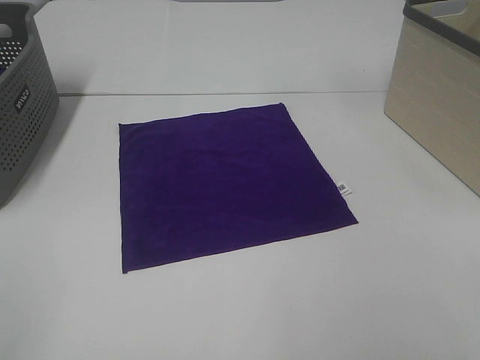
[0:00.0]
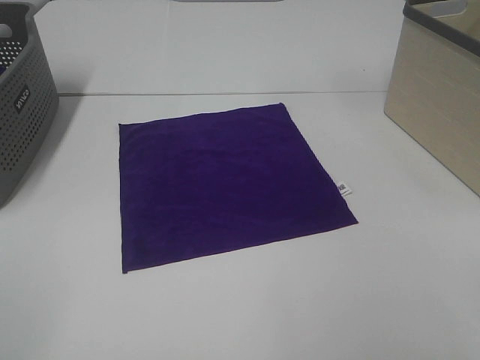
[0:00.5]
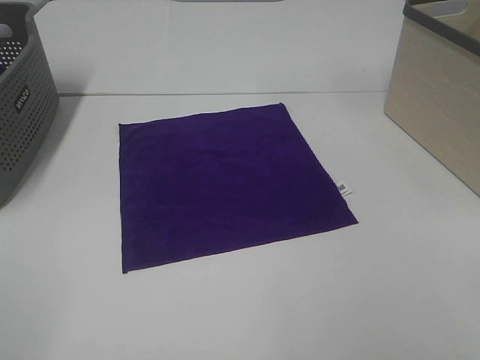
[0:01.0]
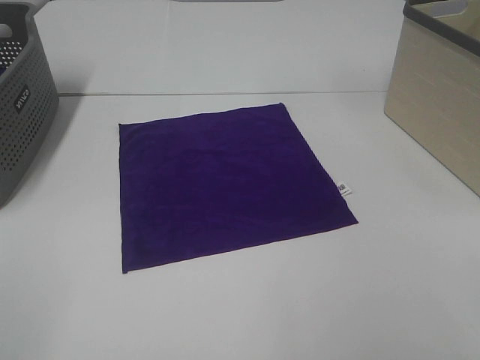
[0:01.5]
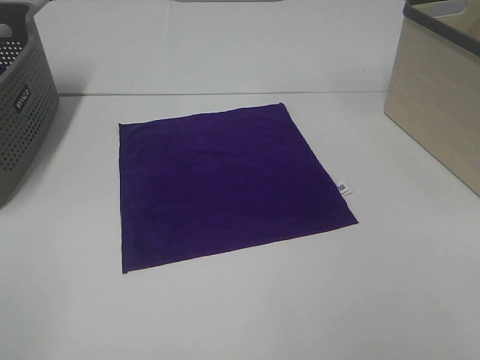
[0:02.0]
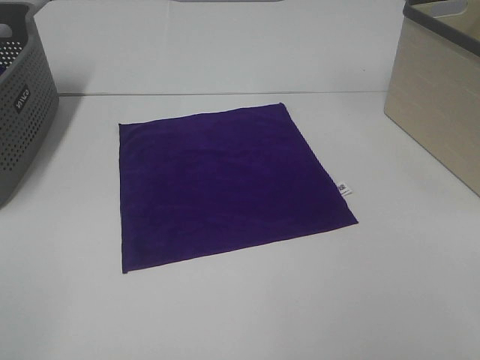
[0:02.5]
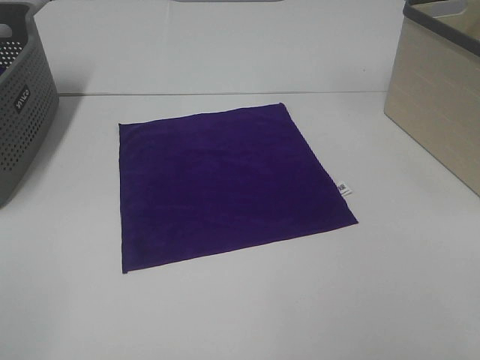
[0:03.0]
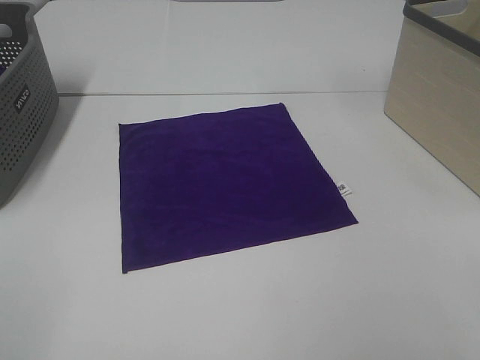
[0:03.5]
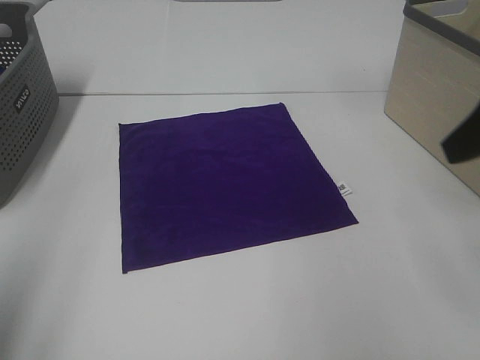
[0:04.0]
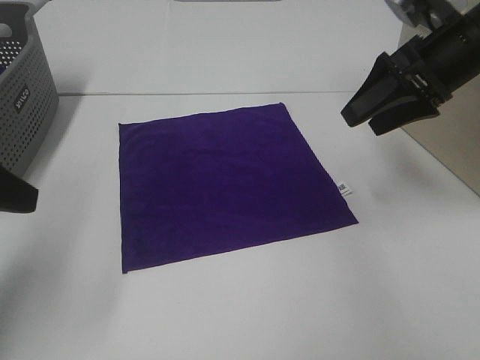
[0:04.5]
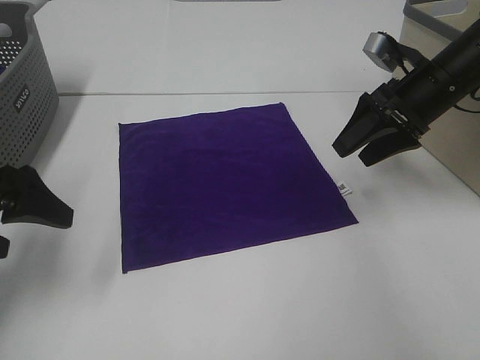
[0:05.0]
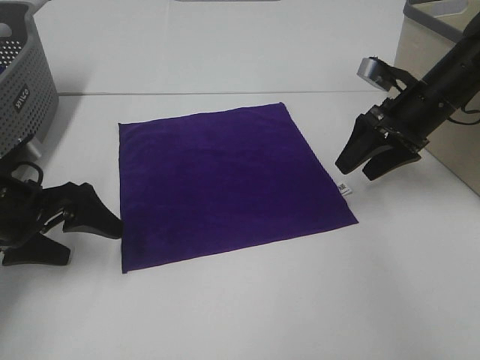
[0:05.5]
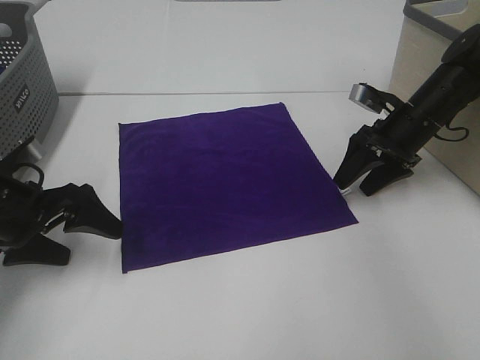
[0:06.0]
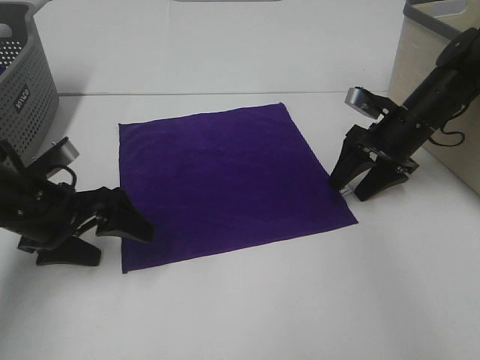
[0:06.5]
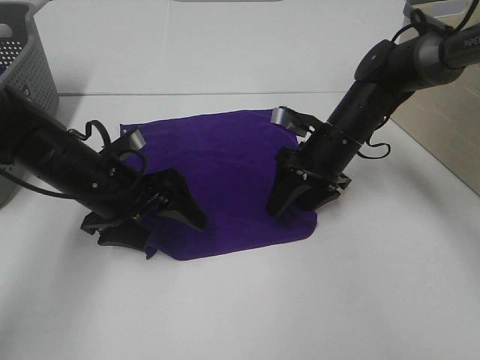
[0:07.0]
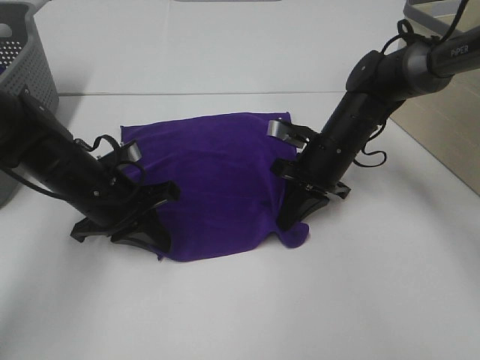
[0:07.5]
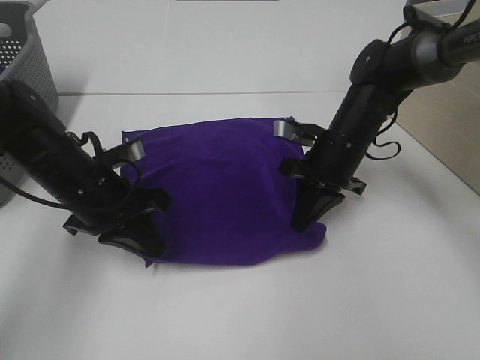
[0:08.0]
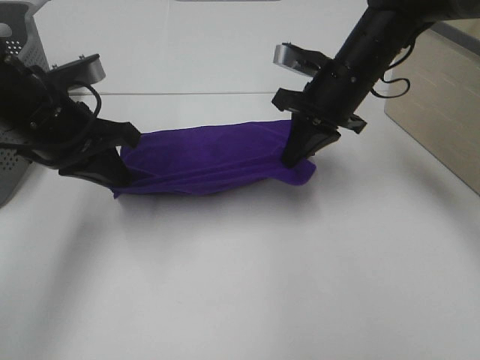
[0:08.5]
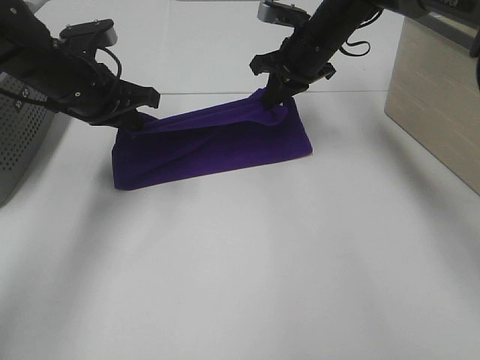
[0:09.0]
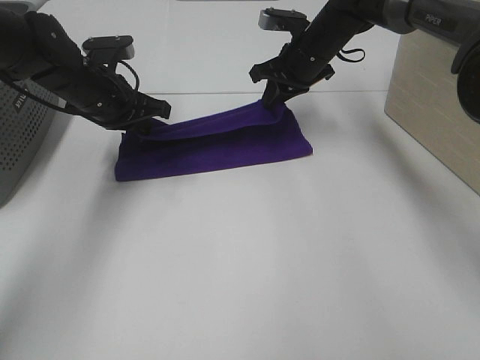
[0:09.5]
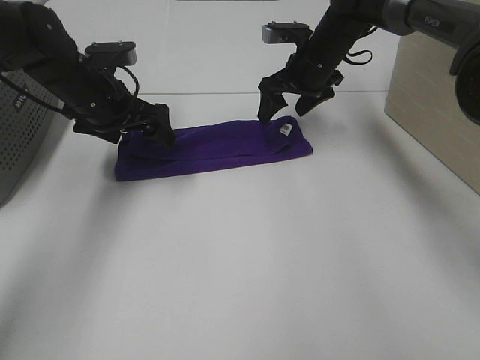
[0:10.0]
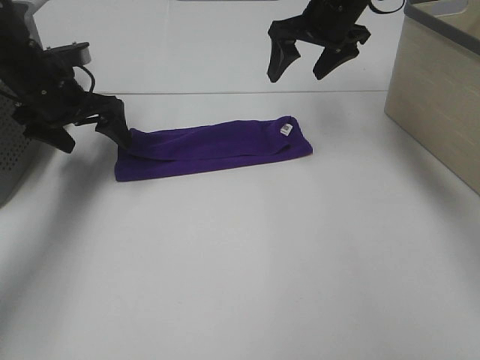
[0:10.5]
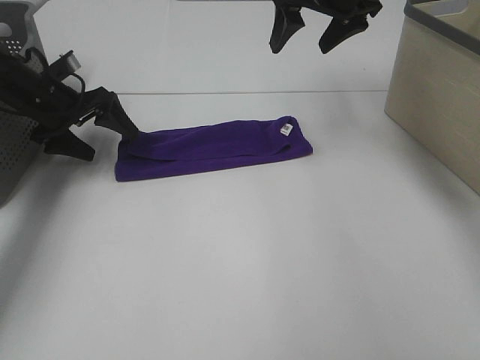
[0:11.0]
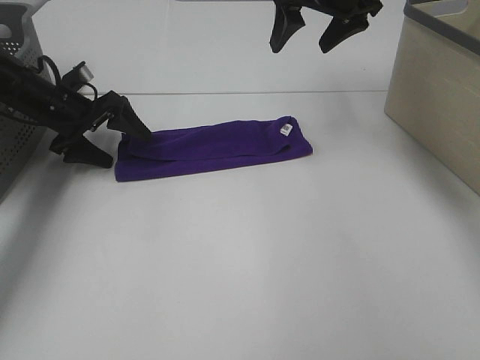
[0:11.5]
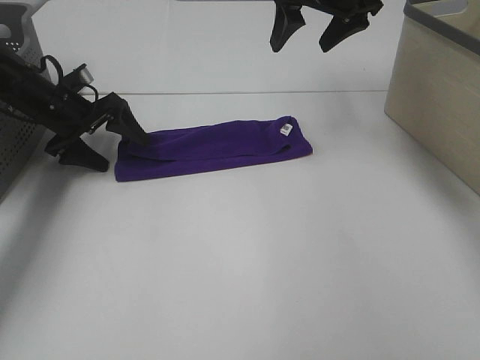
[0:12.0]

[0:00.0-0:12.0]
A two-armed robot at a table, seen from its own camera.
Task of the whole recording: Fold towels.
Step, 0:00.0 to 0:07.5: Left hand: grab the bottom left corner of purple towel.
Step, 0:00.0 to 0:07.5: Right hand: grab the bottom right corner of purple towel.
Step, 0:08.0 to 0:09.5: Left hand: fold the purple towel up.
Step, 0:08.0 to 0:09.5: Right hand: fold the purple towel up.
0:00.0 to 0:02.0: Both grippers stay put.
0:02.0 to 0:04.0: The left gripper goes about 10 cm forward, while the right gripper heads forward, covering about 20 cm.
0:04.0 to 0:06.0: Both grippers travel together downward and forward, approximately 30 cm.
0:06.0 to 0:08.0: The left gripper goes roughly 10 cm to the right, and closes its fingers. The right gripper is displaced to the left by about 10 cm, and closes its fingers.
0:08.0 to 0:10.0: The left gripper is displaced forward by roughly 10 cm, and opens up. The right gripper moves forward and upward, roughly 15 cm, and opens up.
0:10.0 to 0:12.0: The left gripper is displaced to the left and downward by about 10 cm. The right gripper goes approximately 15 cm upward.

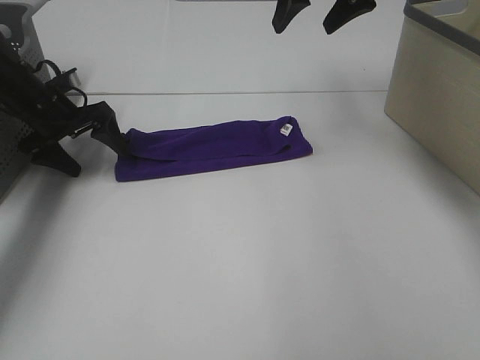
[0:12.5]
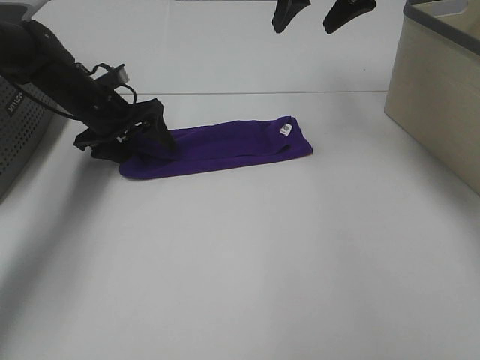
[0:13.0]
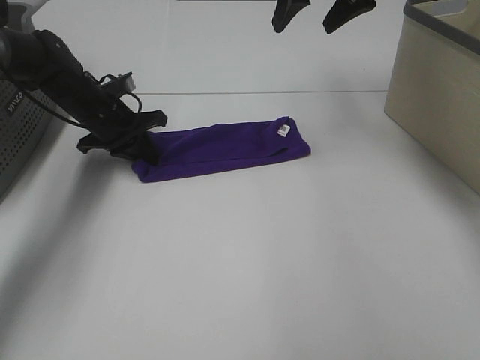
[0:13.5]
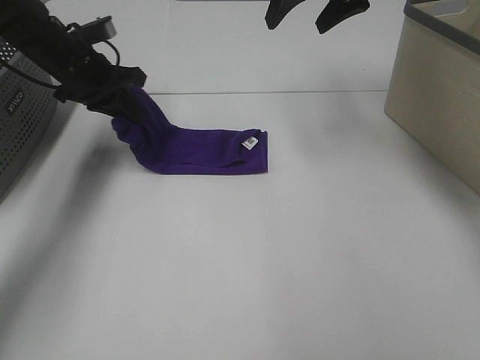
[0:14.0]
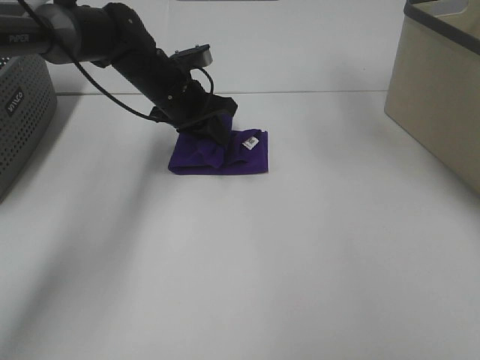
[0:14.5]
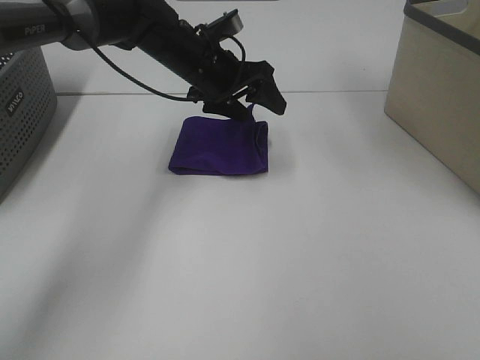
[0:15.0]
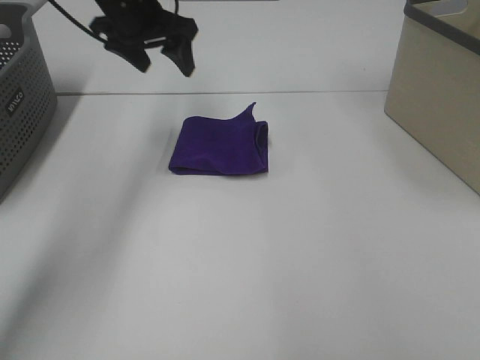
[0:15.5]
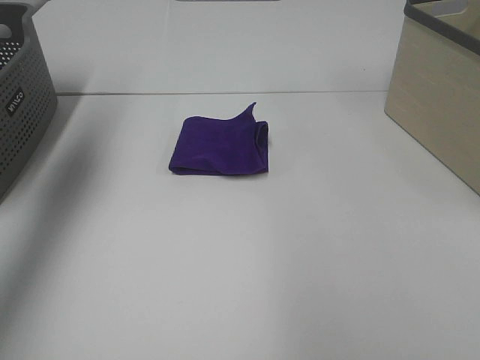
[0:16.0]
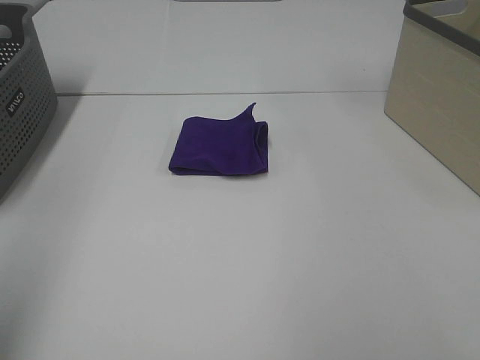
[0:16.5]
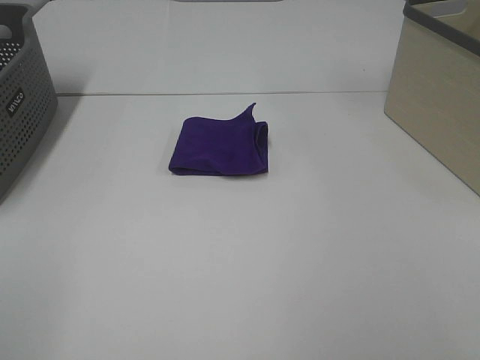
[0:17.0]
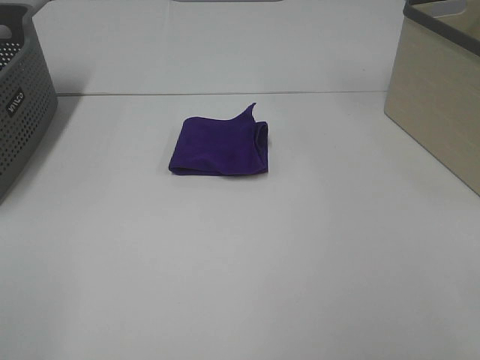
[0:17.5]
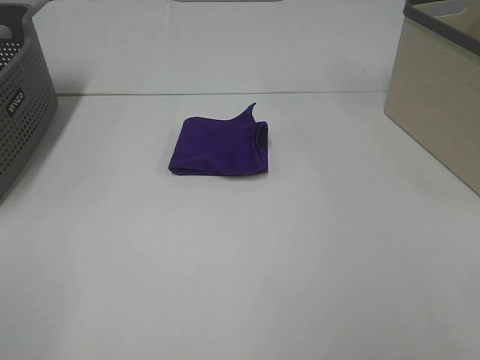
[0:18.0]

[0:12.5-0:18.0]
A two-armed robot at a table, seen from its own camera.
Task of the whole recording: Fold towels.
Step, 0:12.5 to 0:14.5: Left hand: fold the purple towel from left to right.
0:12.5 to 0:14.5: The right gripper moves upward, approximately 5 cm, while the left gripper shifts approximately 20 cm to the right, and closes.
0:14.5 to 0:16.0: The left gripper goes approximately 35 cm upward, to the left and backward, and opens its fingers. Meanwhile the right gripper goes roughly 25 cm backward and to the right.
0:16.0 to 0:18.0: The left gripper travels backward by roughly 35 cm.
